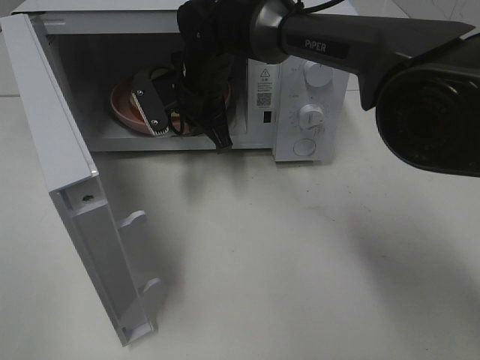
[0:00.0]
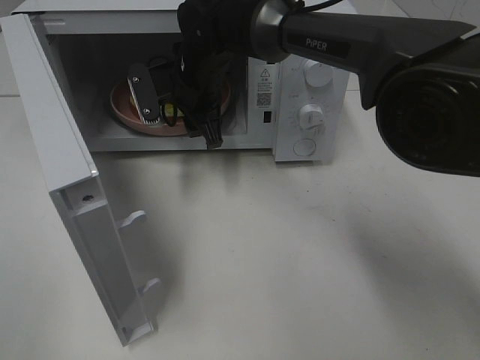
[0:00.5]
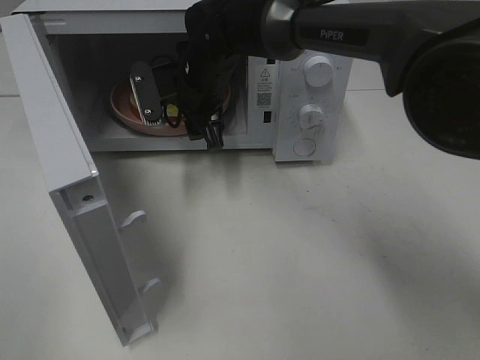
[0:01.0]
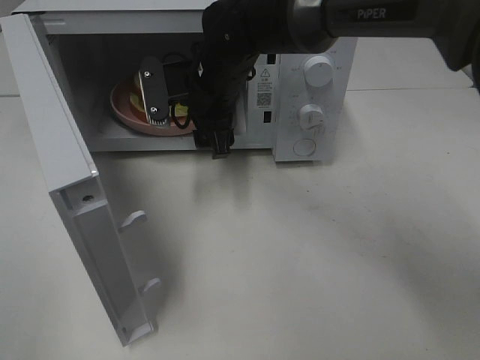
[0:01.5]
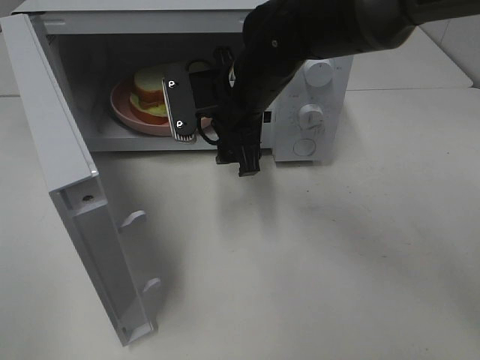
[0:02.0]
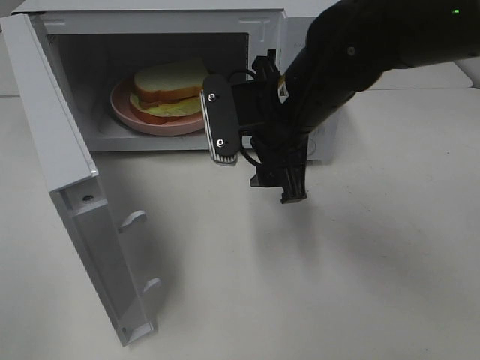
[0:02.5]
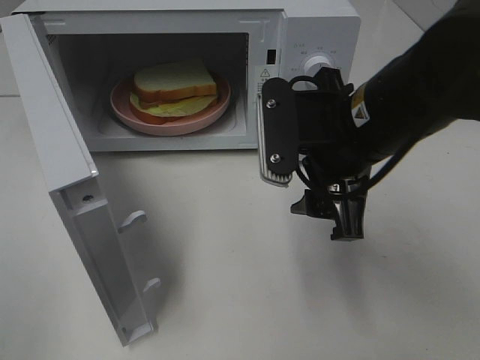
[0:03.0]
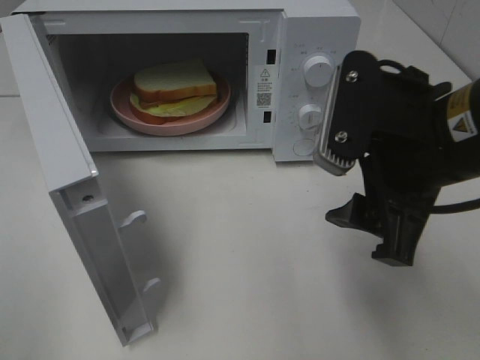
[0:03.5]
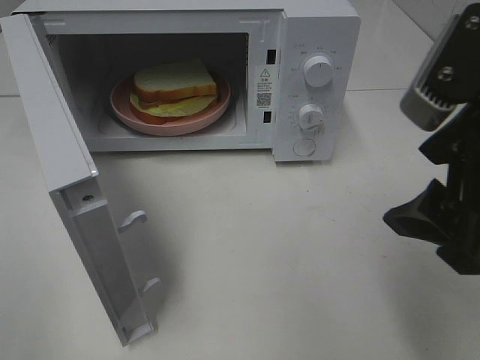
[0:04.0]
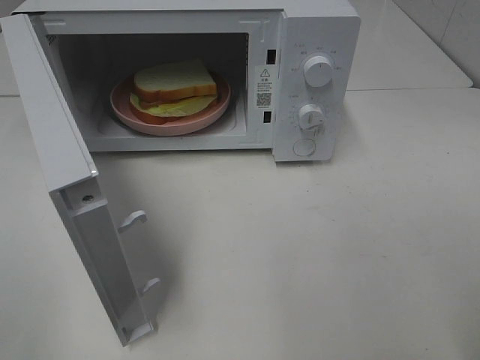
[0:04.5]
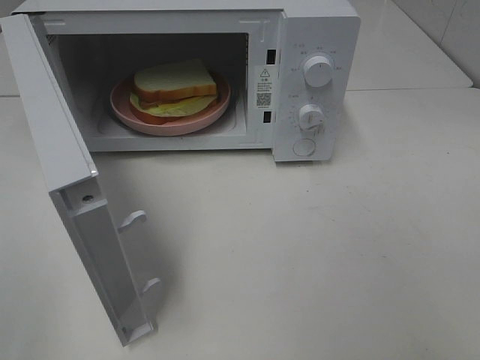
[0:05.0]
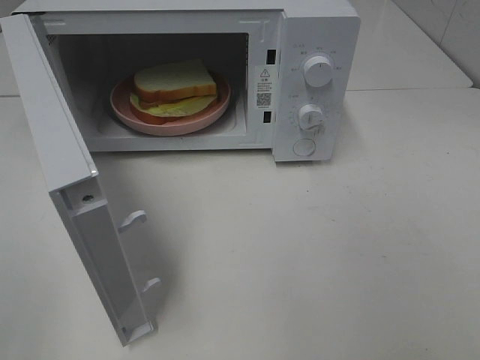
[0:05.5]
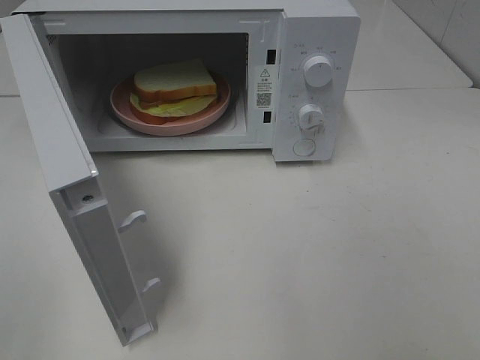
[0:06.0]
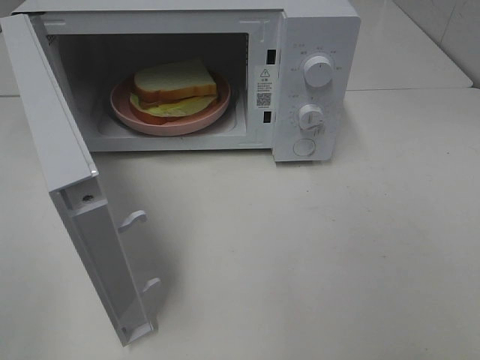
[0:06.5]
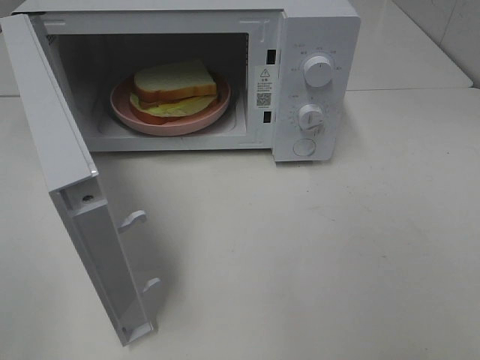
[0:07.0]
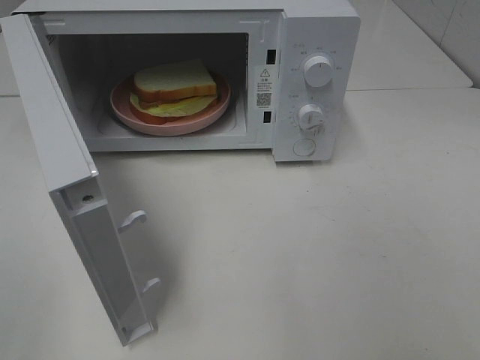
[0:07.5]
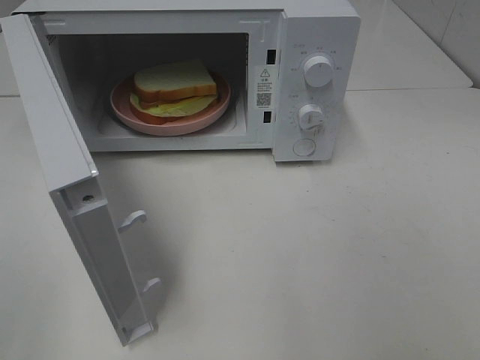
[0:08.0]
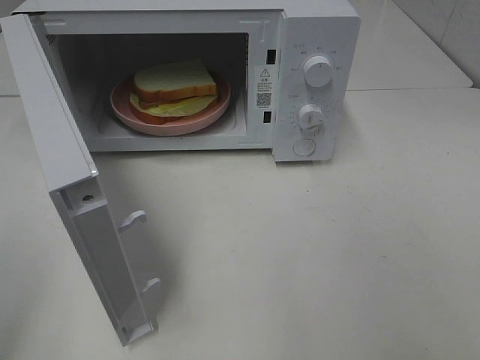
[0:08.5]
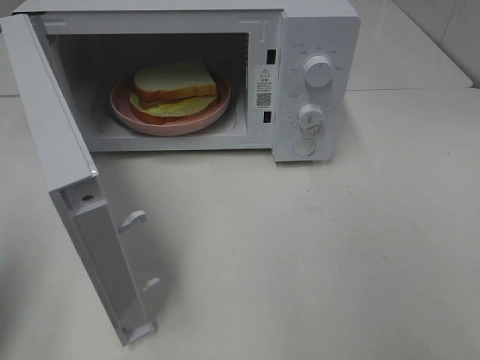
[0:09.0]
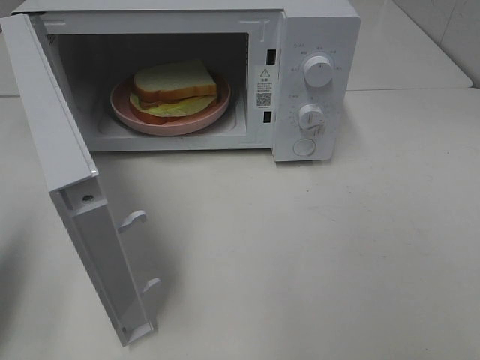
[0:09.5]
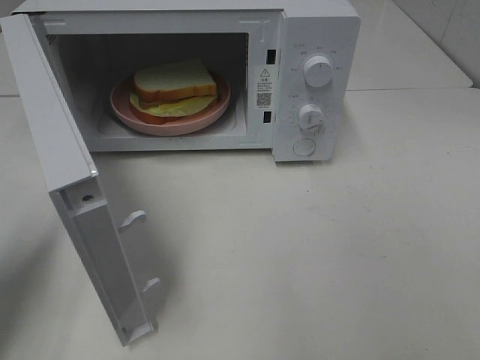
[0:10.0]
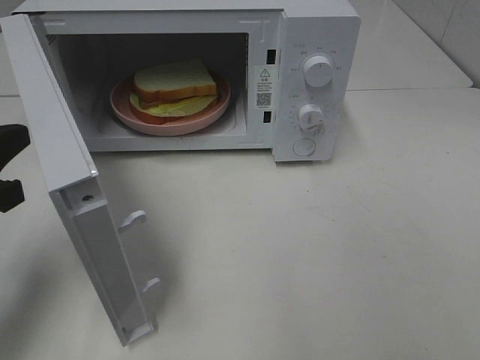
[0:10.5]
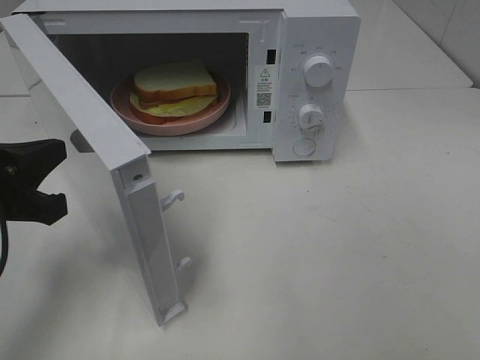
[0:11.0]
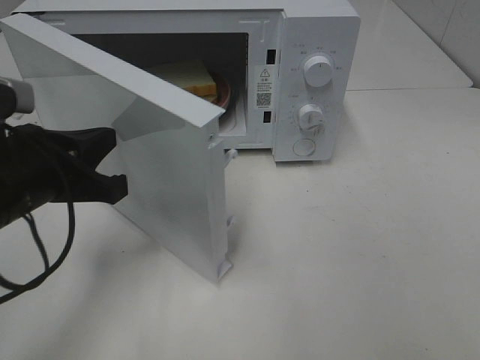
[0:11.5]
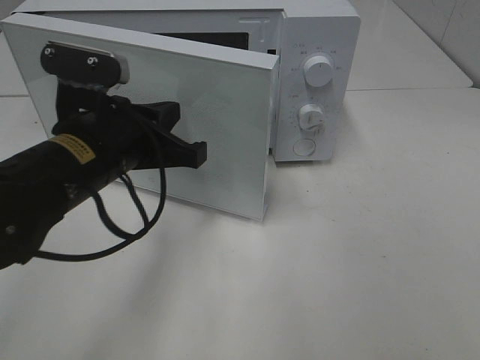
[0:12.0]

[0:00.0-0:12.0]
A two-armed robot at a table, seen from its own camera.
Task of the whole recording: Heat Sandwich.
0:00.0 to 0:02.0: The right gripper goes about 10 cm backward and to the right, and opens its fingers.
0:02.0 to 0:04.0: The right gripper travels backward, to the right and upward by some 30 cm.
0:04.0 to 0:06.0: The right gripper travels backward and to the right by roughly 20 cm.
0:06.0 to 0:08.0: The two grippers keep their place.
0:08.0 to 0:10.0: The left gripper travels forward and downward by roughly 20 cm, and closes.
0:10.0 to 0:12.0: The left gripper goes approximately 20 cm to the right.

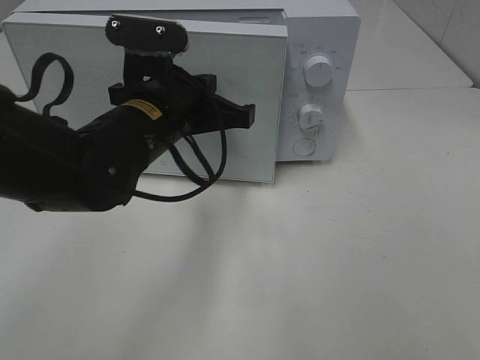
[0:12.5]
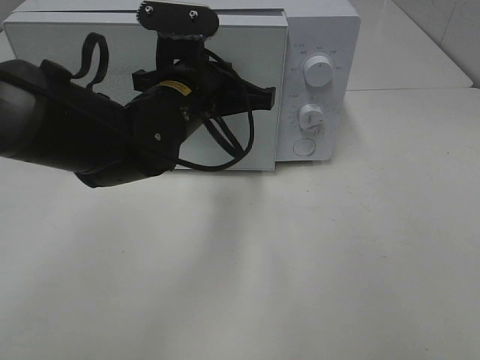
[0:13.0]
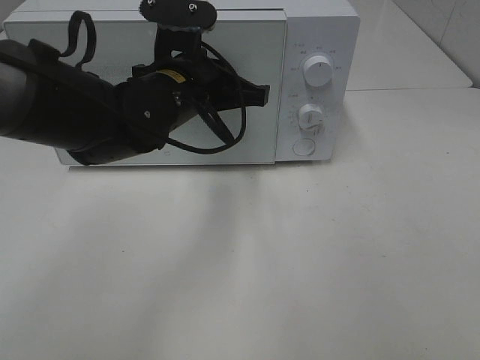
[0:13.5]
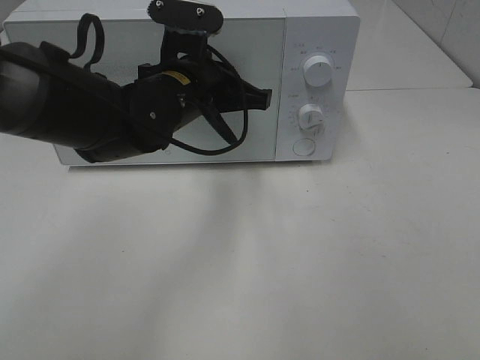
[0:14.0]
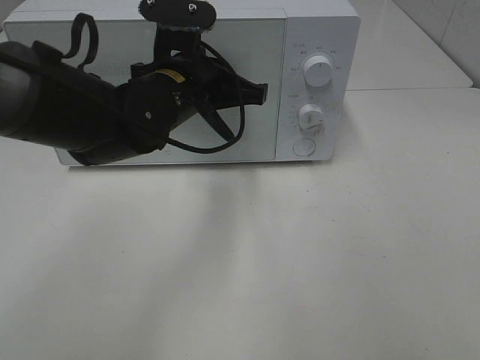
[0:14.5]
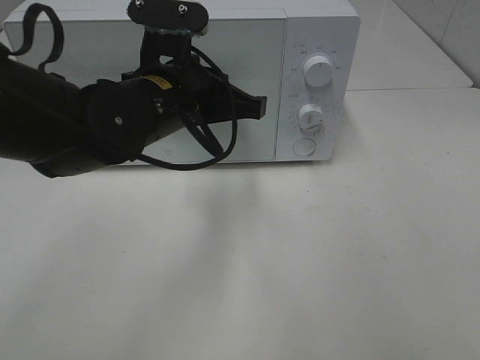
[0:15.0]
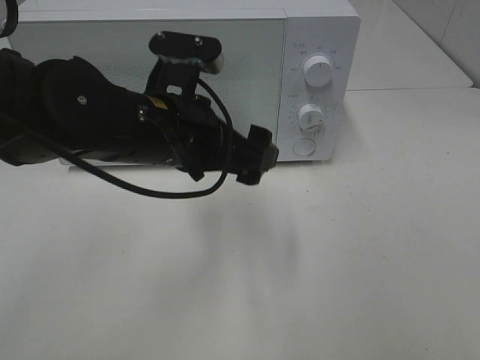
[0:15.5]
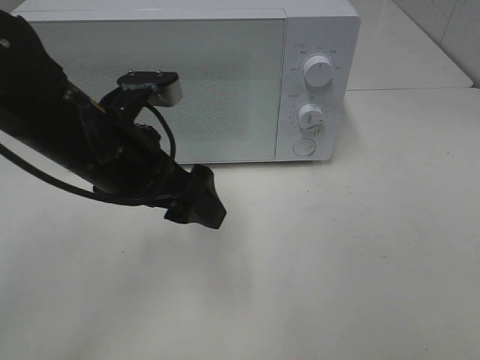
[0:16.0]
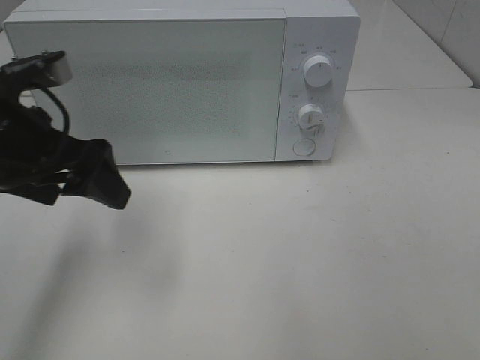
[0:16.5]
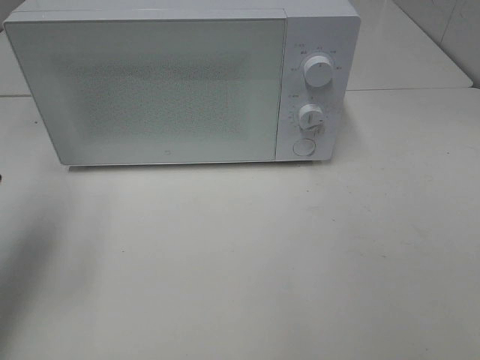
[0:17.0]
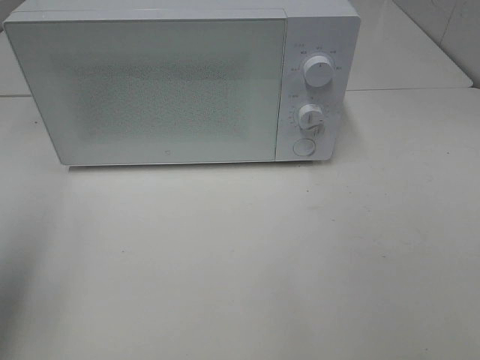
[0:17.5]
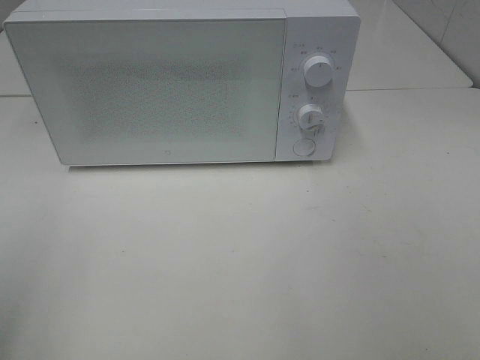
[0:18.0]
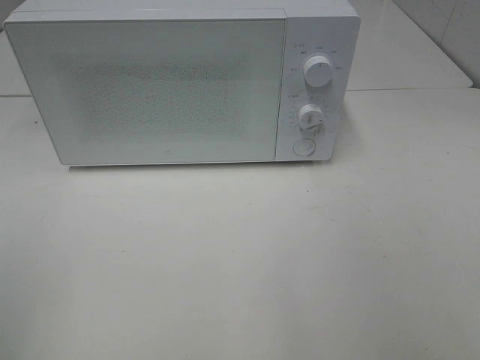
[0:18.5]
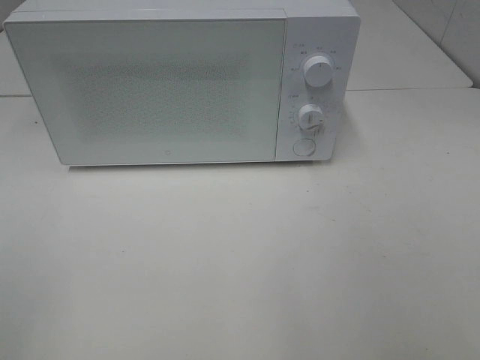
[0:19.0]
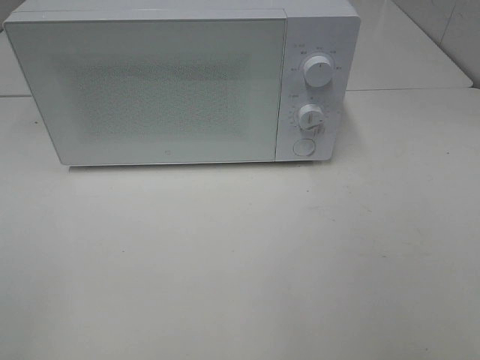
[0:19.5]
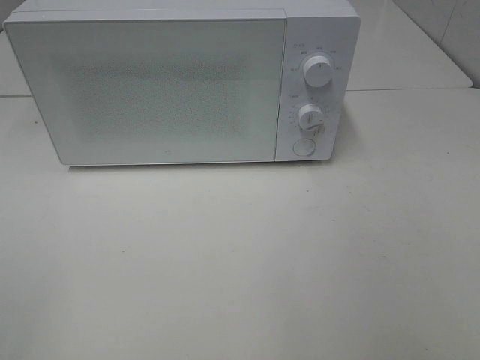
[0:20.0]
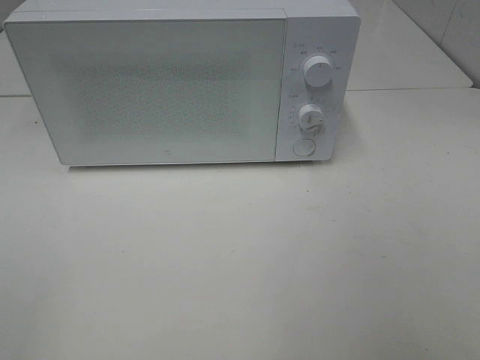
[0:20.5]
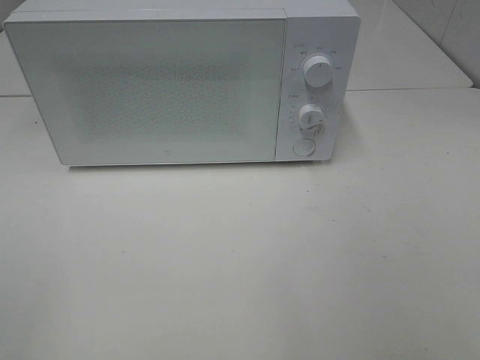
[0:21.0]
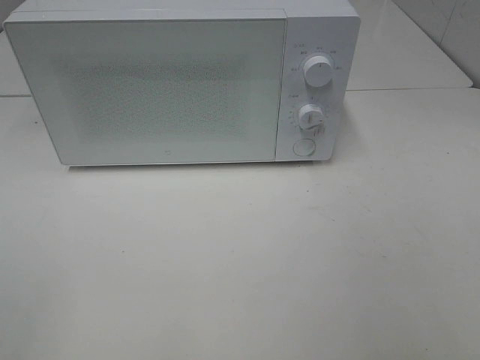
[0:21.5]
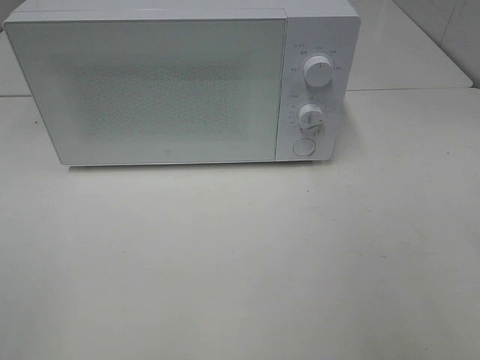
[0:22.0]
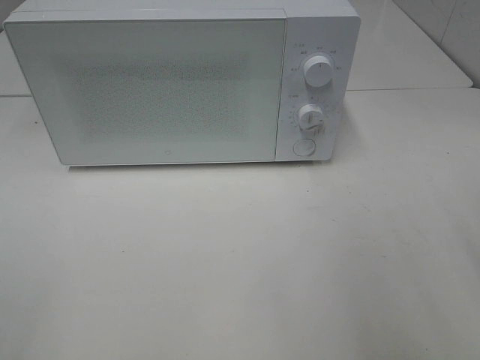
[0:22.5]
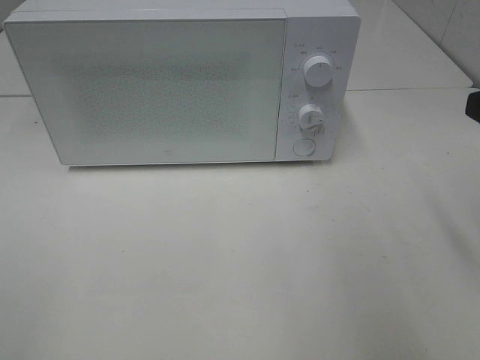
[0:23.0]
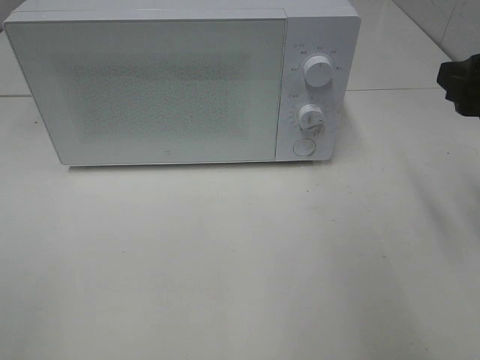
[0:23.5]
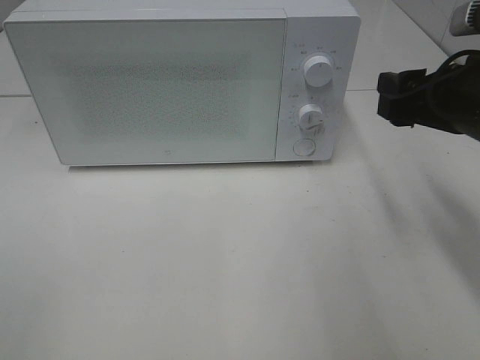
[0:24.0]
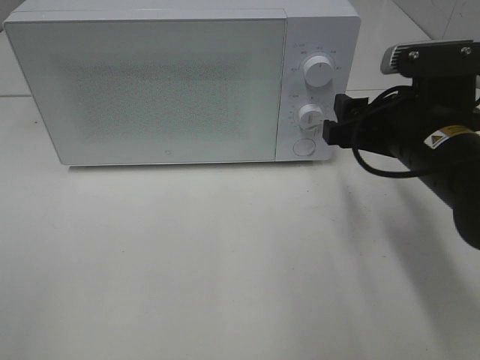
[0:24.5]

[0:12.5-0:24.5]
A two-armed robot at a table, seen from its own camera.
Task of the whole recording: Heat Sandwich.
Step, 0:12.5 to 0:15.0: Left hand: close the microwave door.
0:12.5 to 0:14.5: The left gripper shifts by about 5 cm.
0:14.5 to 0:16.5: The left gripper heads to the left and backward, covering about 20 cm, and opens its fingers.
0:16.5 to 0:18.5: The left gripper heads backward and to the left, covering about 25 cm.
0:22.5 to 0:24.5: The right gripper moves forward, to the left and downward, roughly 20 cm.

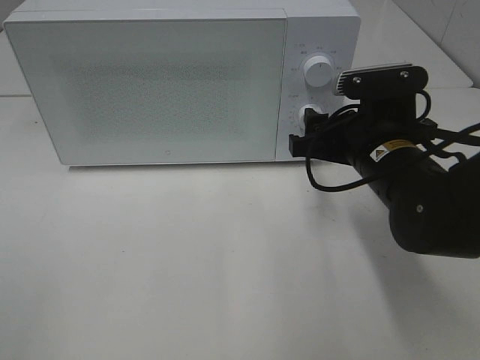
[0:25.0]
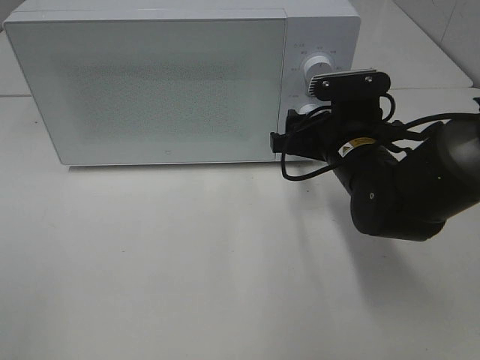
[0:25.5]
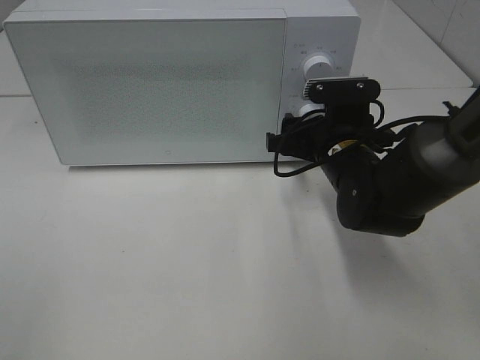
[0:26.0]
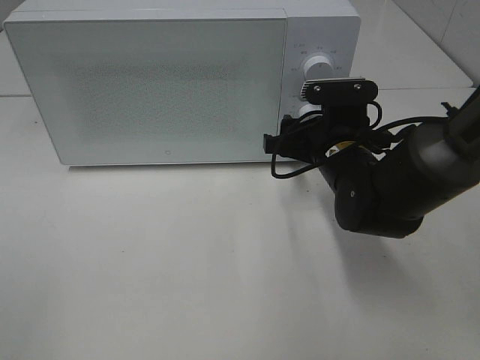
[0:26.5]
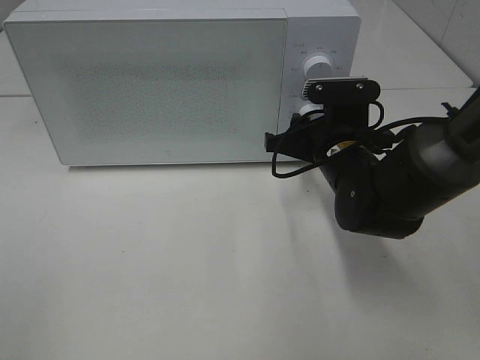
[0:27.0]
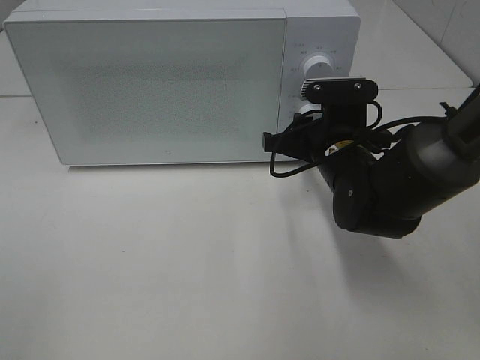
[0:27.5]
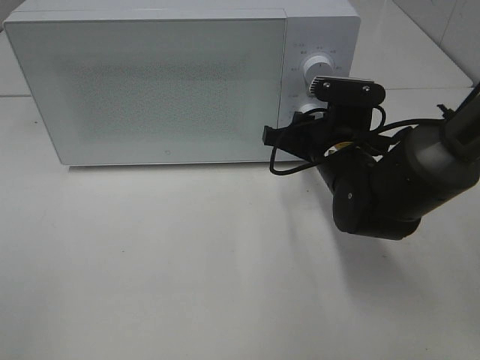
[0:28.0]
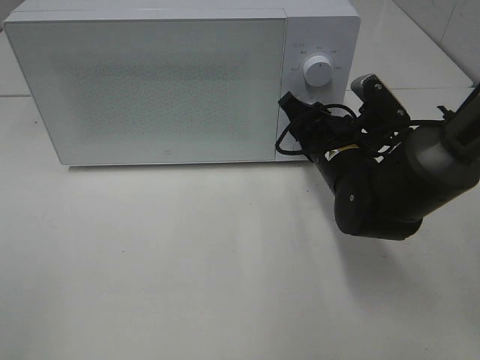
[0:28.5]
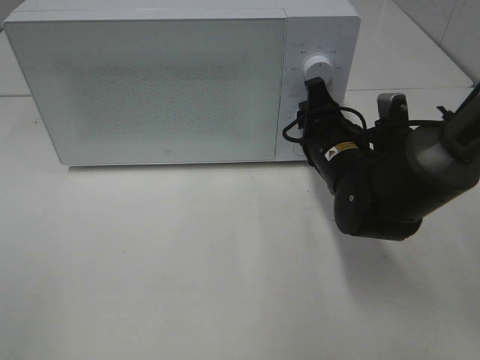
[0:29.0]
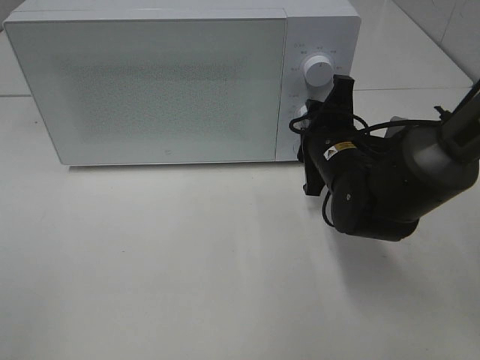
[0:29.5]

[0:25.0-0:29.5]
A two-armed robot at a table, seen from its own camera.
Task of the whole recording: Heat Sandwich.
0:25.0 to 0:27.0: The right gripper changes place by about 5 cm.
